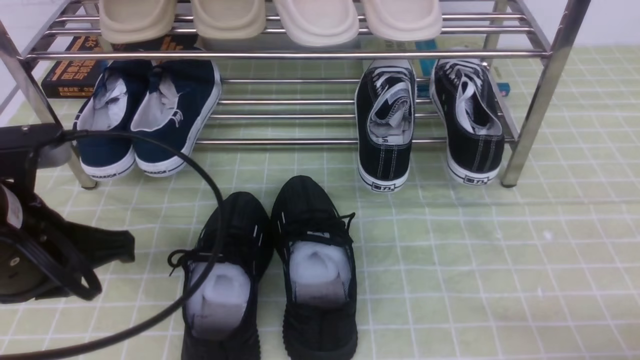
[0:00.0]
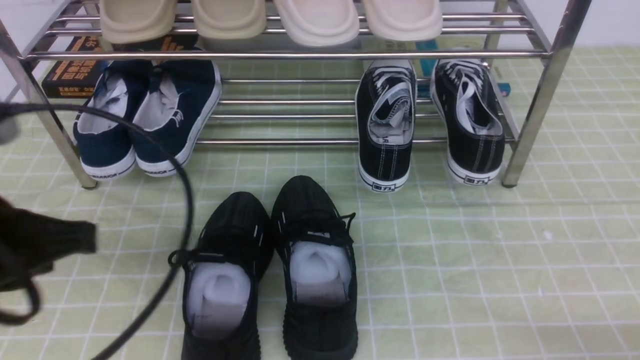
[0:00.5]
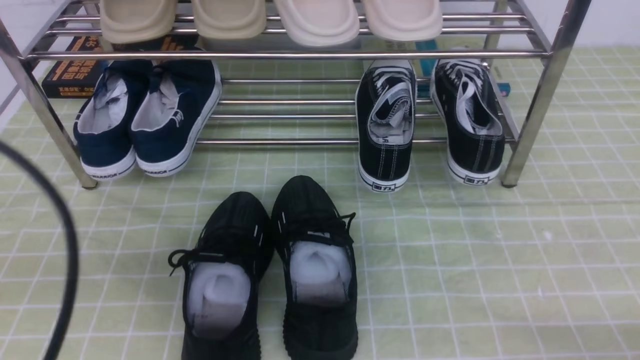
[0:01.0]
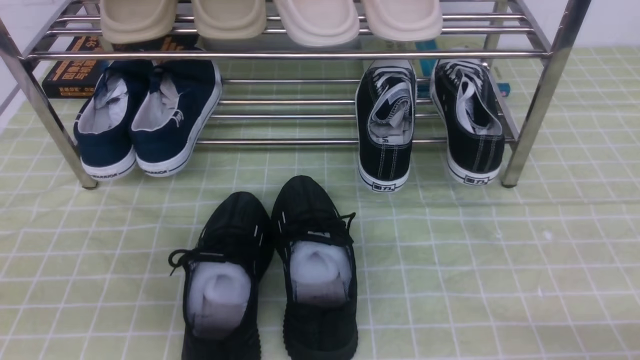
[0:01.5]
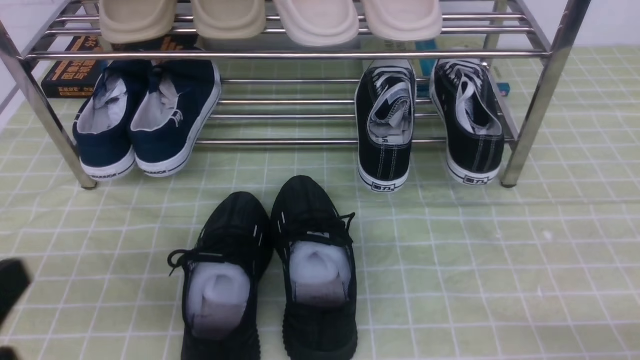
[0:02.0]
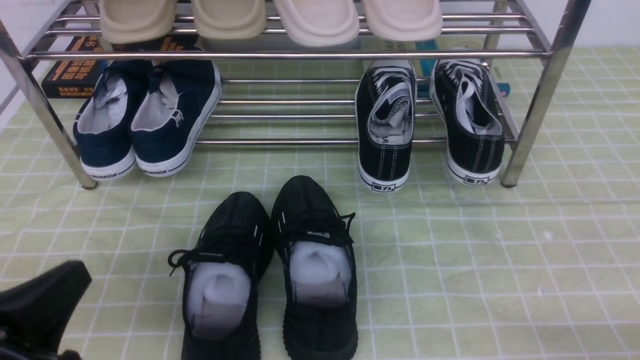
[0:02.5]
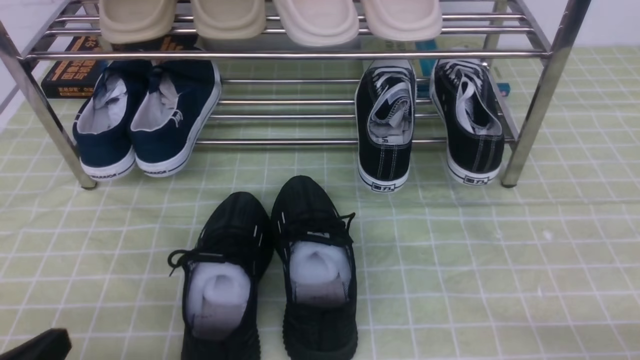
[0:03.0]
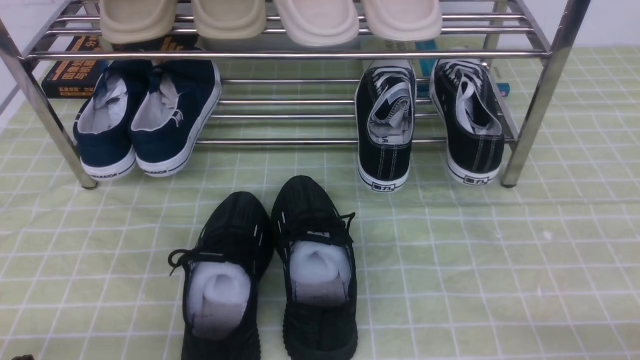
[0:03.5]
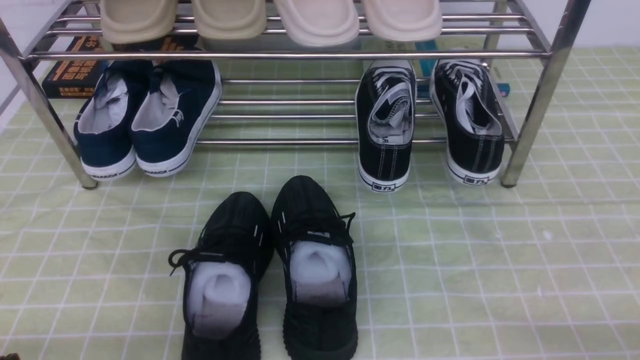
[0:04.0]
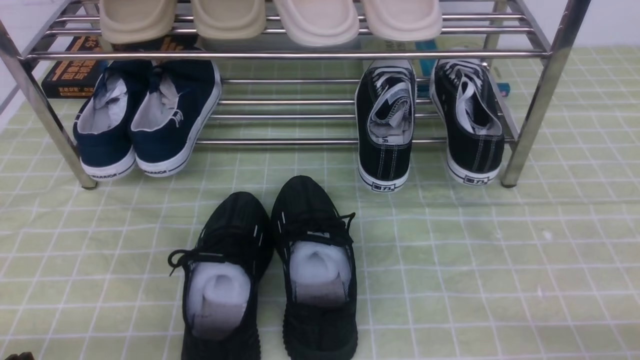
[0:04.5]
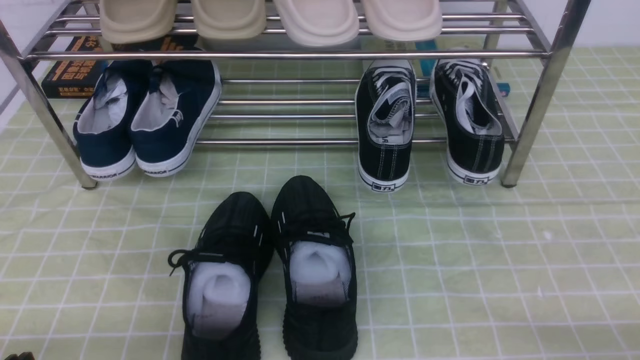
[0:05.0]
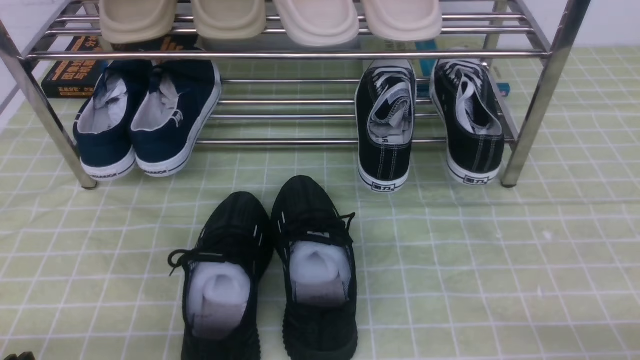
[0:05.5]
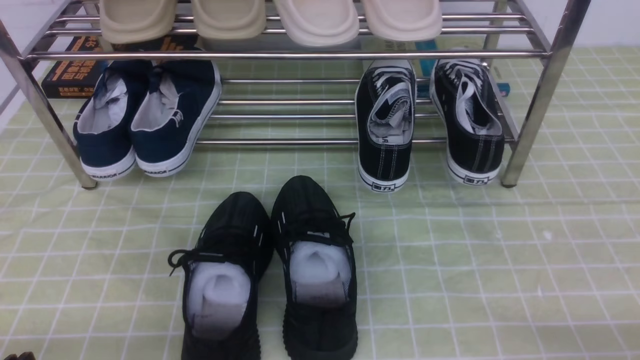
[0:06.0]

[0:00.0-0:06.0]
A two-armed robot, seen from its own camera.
0:00.0 to 0:02.0: The left gripper shifts approximately 10 cm backward.
0:02.0 to 0:04.0: The left gripper shifts approximately 15 cm downward.
0:04.0 to 0:06.0: Neither gripper changes place.
